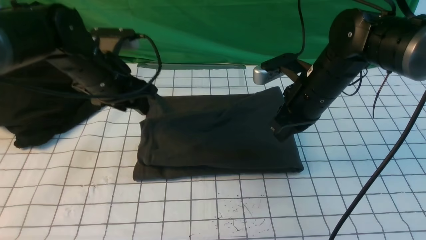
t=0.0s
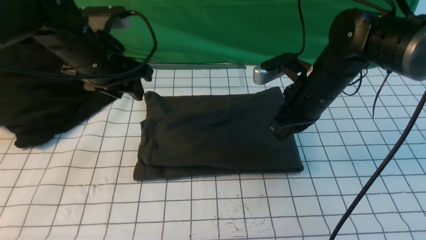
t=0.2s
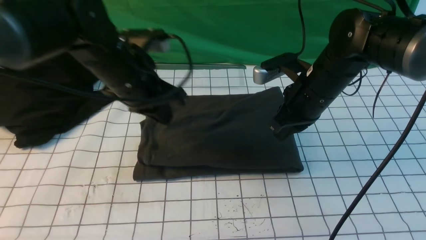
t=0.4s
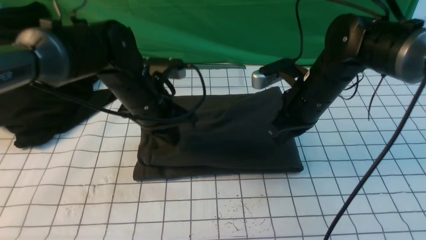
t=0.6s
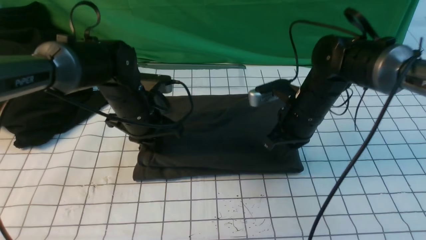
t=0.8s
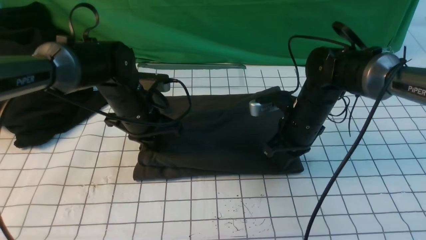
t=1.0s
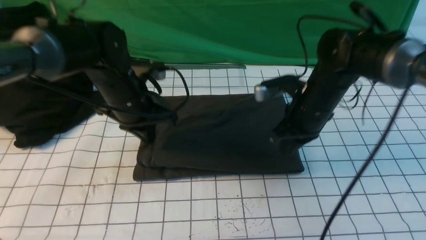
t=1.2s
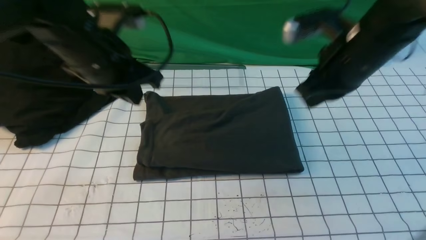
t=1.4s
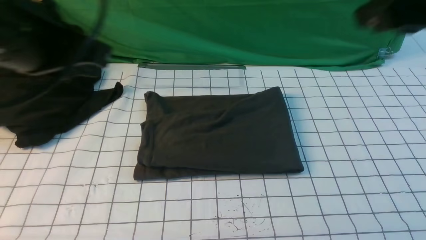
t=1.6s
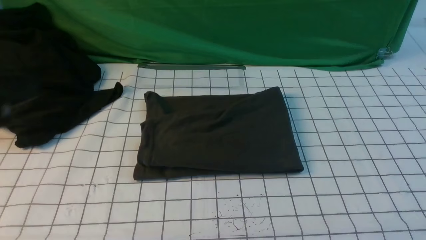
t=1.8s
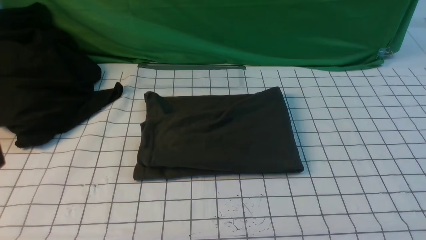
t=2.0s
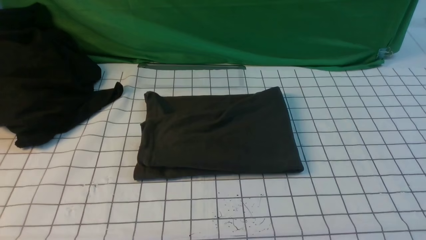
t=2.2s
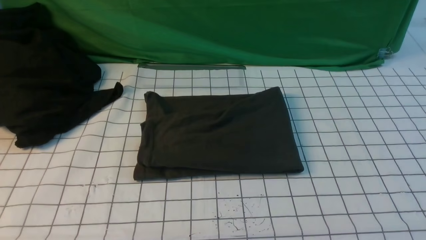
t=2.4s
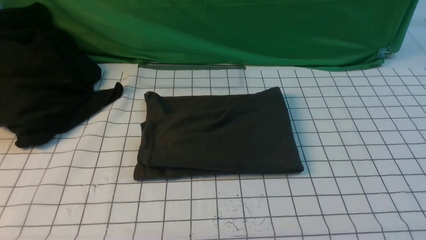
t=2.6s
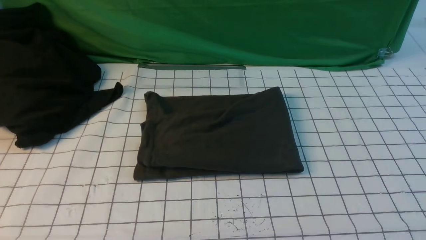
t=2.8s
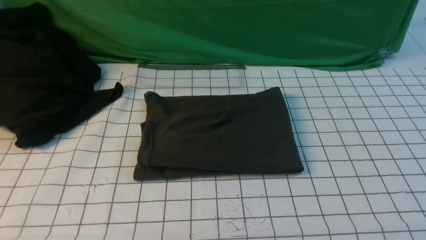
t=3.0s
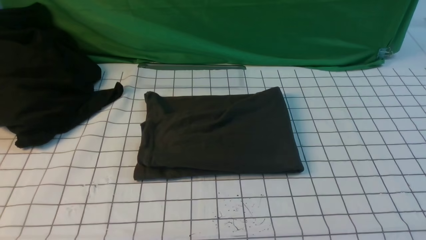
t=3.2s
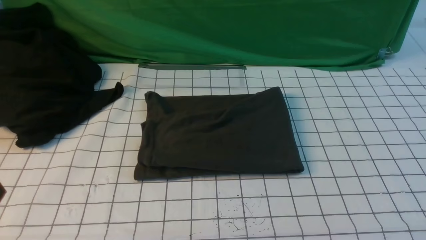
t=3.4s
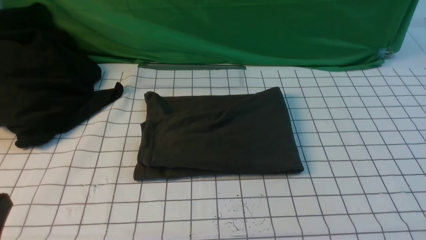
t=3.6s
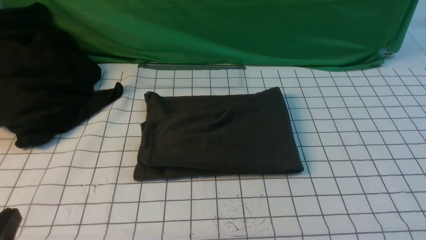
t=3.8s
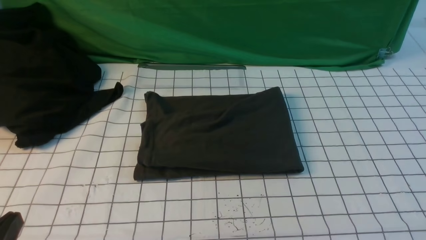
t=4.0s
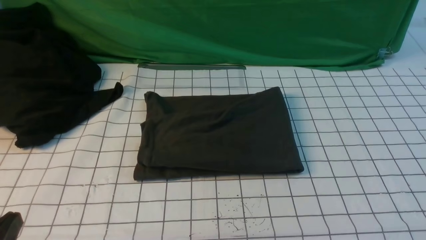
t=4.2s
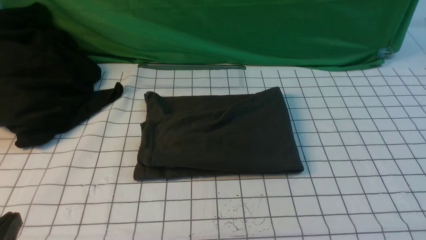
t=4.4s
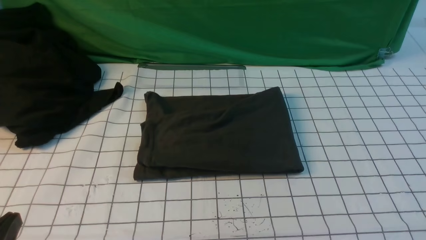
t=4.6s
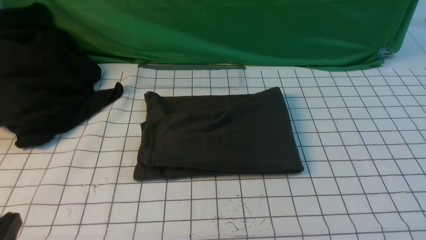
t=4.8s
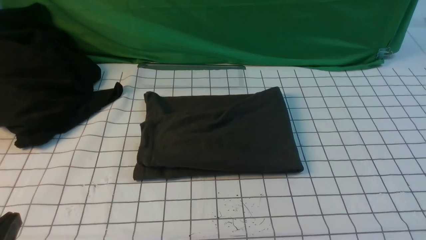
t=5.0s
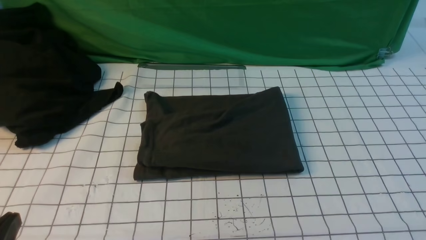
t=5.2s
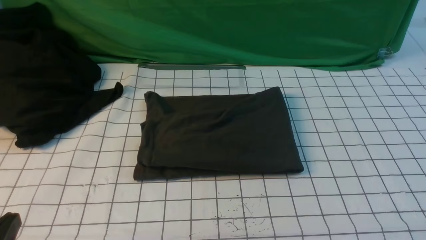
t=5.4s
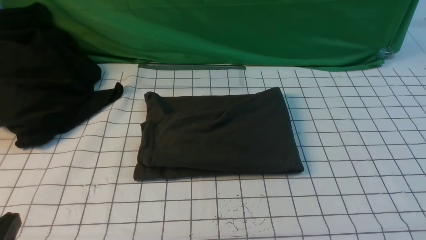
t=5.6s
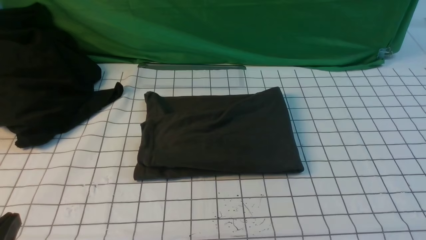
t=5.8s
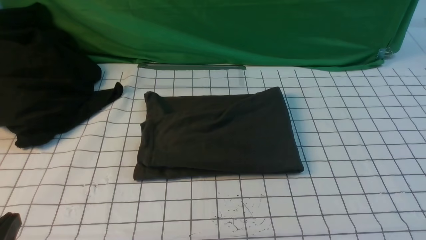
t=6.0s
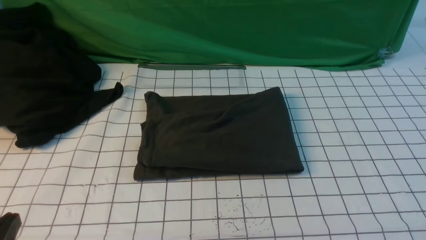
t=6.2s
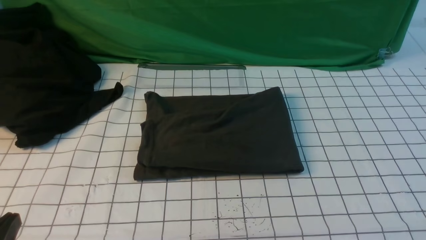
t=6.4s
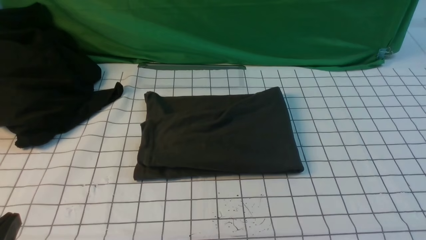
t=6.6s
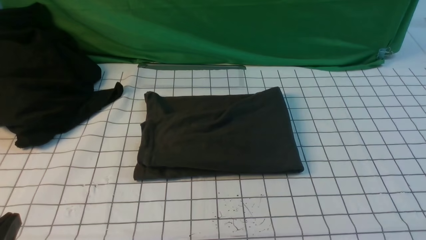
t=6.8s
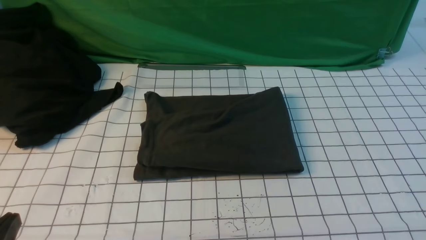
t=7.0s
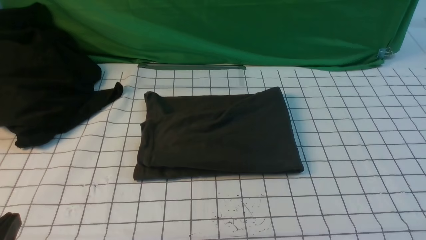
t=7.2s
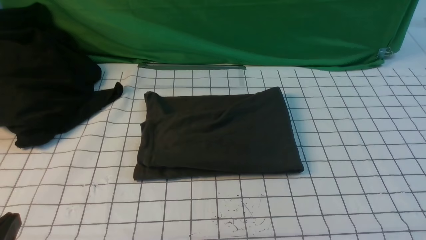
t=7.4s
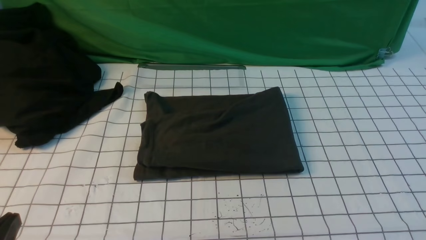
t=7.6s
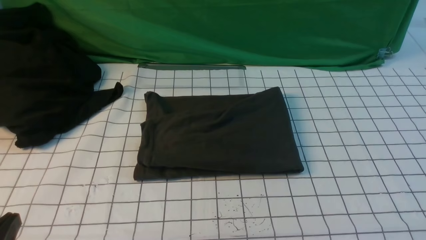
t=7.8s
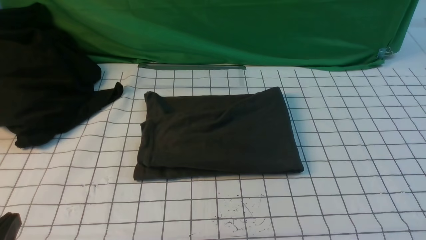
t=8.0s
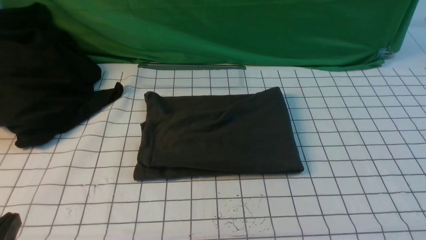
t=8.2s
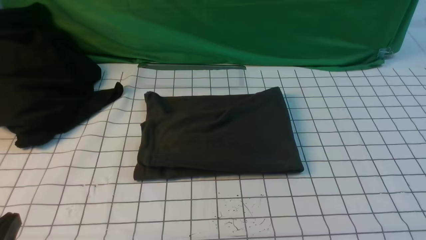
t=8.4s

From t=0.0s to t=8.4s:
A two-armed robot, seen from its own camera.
From t=0.0s to t=1.4s: The two grippers go roughly 10 cm upward and backward. The left gripper closes its fingers.
From t=1.4s to t=2.8s: The left gripper is displaced backward by roughly 30 cm. Meanwhile the right gripper moves backward and to the right, about 30 cm.
From t=7.0s to t=8.4s: The two grippers keep their place.

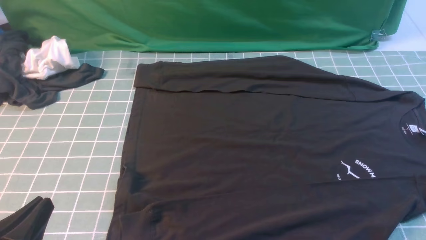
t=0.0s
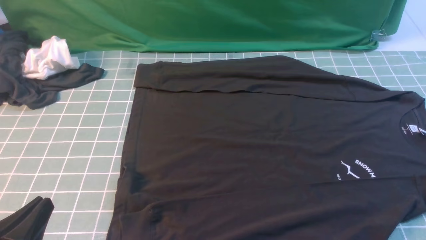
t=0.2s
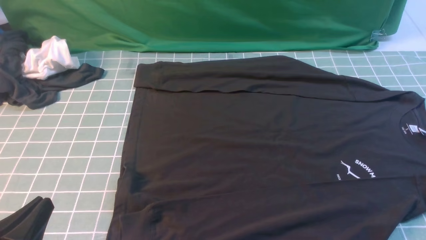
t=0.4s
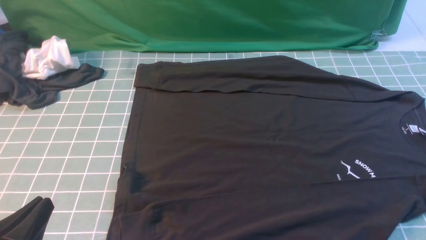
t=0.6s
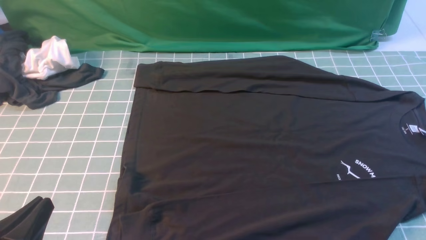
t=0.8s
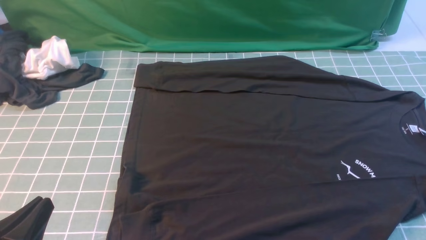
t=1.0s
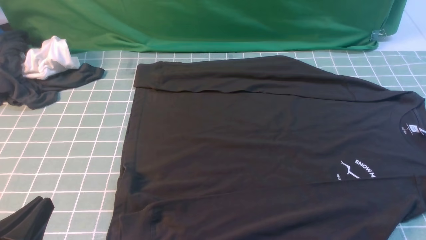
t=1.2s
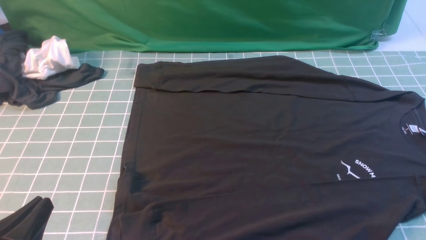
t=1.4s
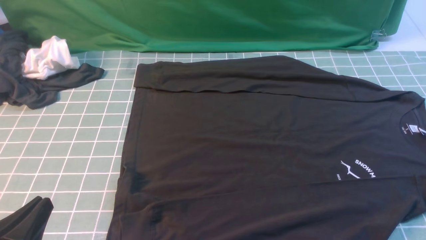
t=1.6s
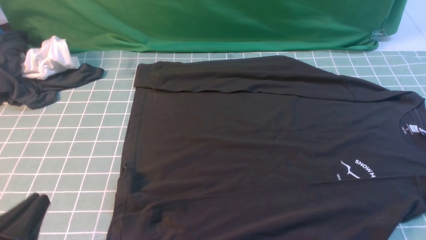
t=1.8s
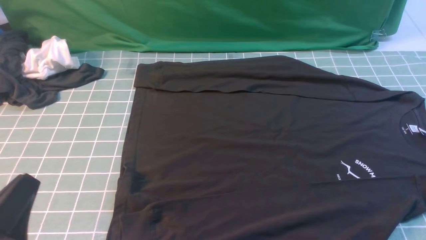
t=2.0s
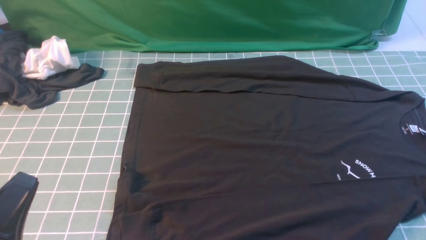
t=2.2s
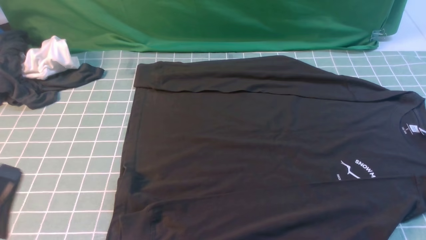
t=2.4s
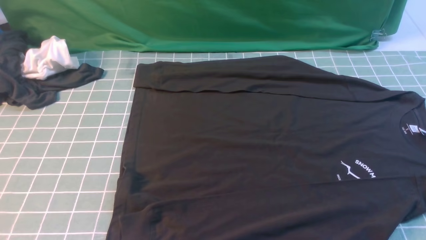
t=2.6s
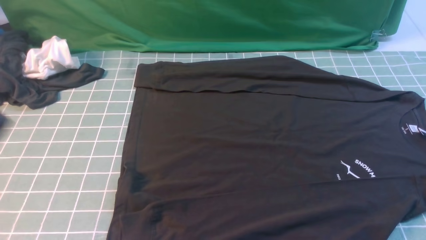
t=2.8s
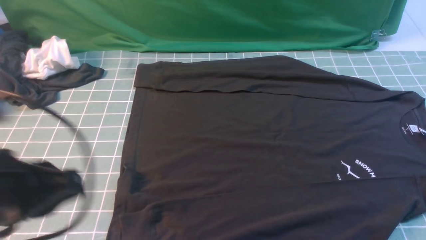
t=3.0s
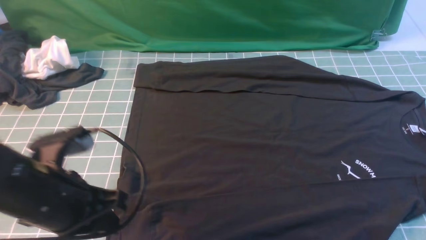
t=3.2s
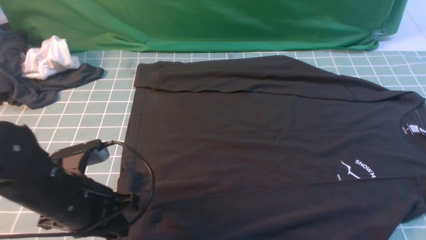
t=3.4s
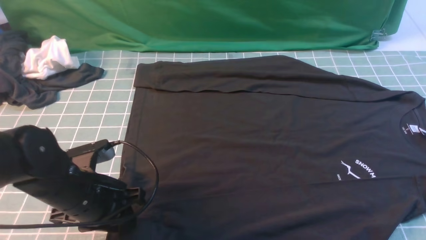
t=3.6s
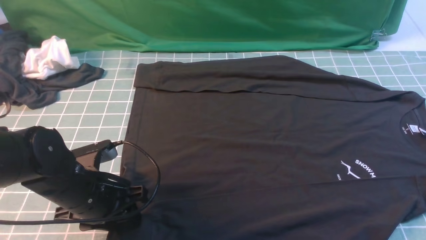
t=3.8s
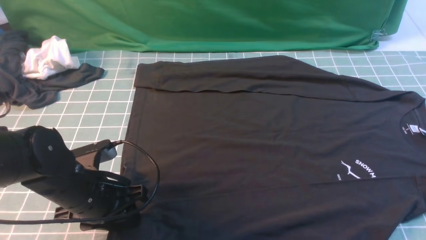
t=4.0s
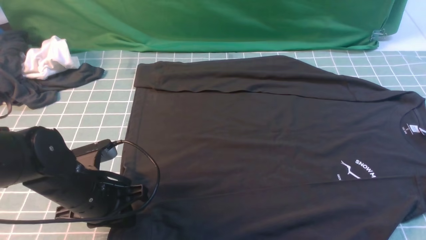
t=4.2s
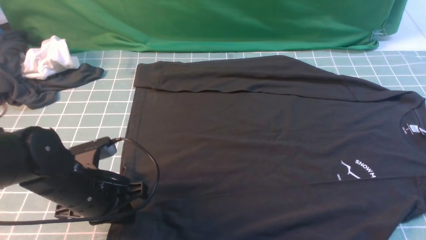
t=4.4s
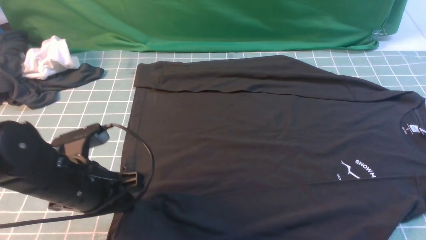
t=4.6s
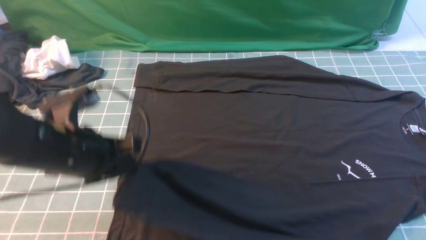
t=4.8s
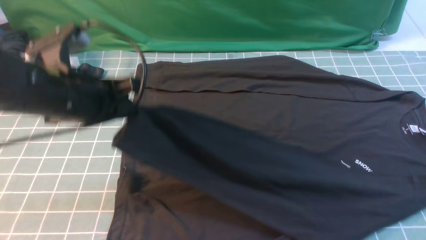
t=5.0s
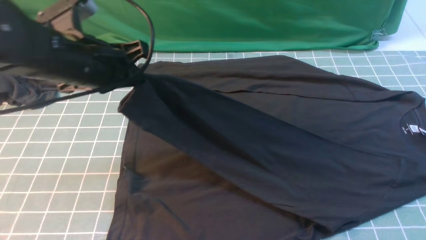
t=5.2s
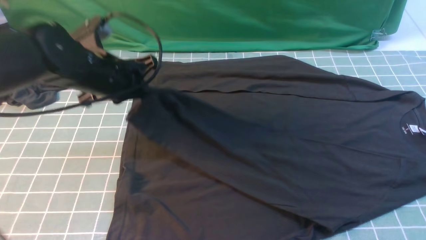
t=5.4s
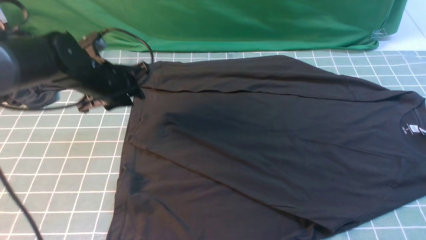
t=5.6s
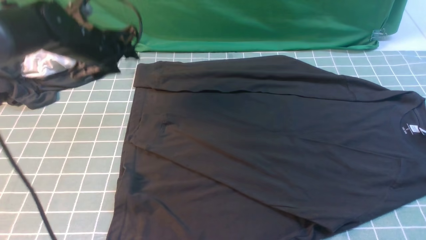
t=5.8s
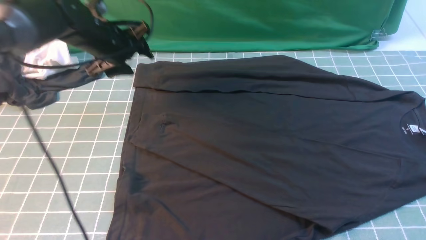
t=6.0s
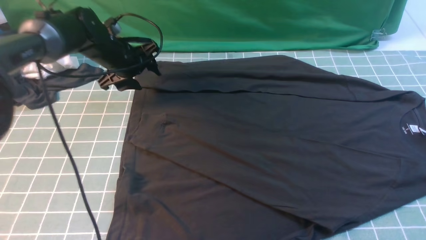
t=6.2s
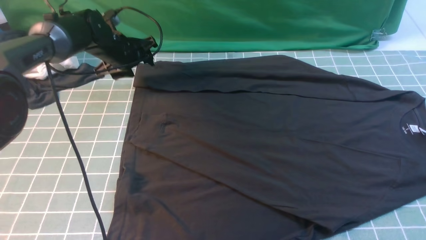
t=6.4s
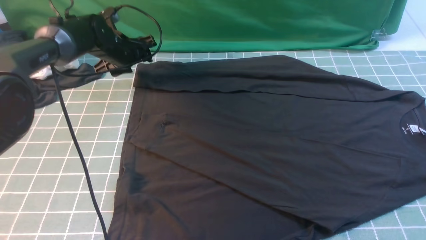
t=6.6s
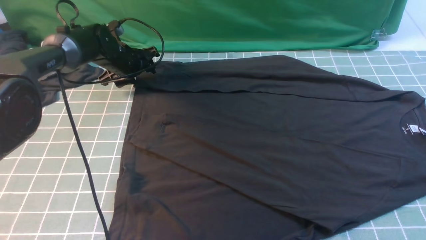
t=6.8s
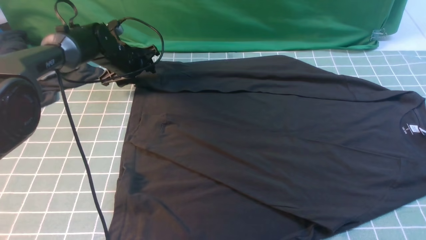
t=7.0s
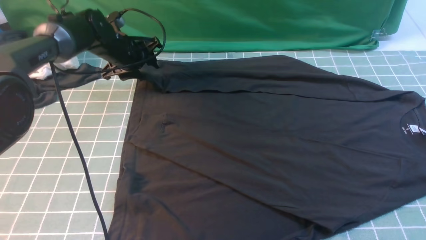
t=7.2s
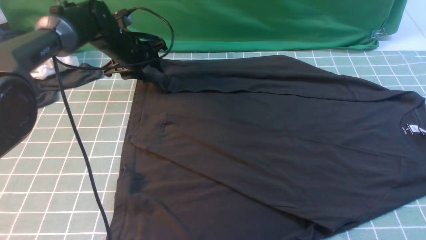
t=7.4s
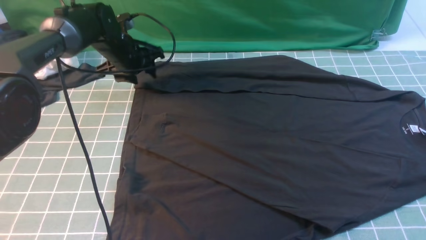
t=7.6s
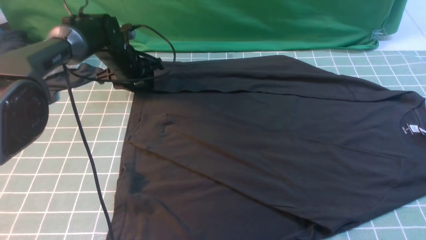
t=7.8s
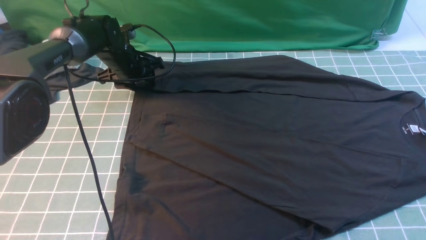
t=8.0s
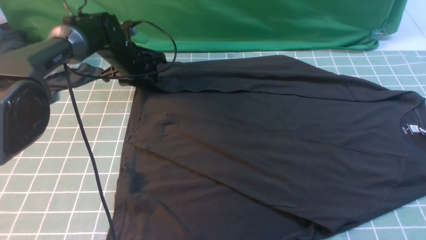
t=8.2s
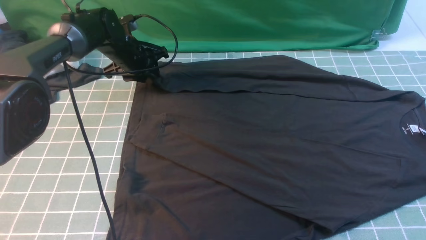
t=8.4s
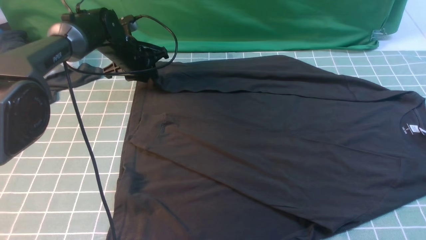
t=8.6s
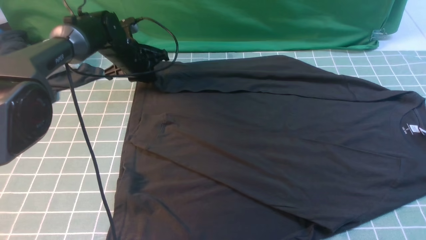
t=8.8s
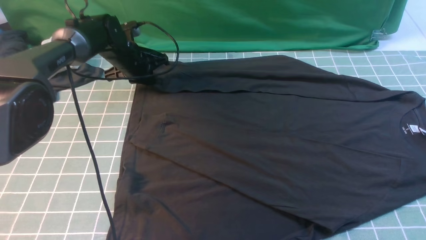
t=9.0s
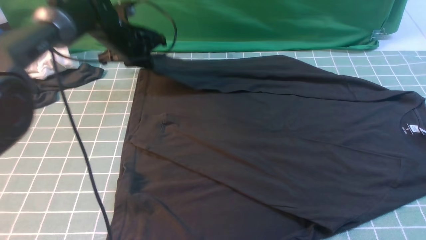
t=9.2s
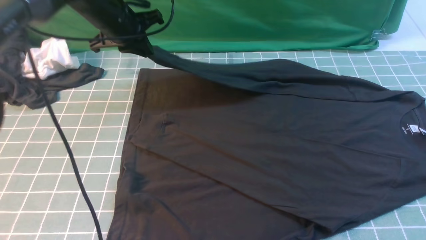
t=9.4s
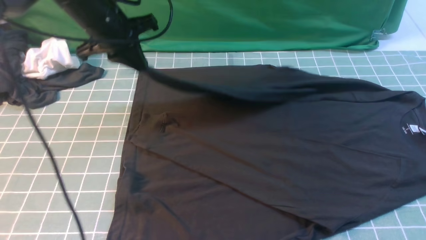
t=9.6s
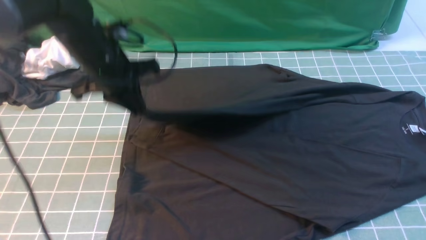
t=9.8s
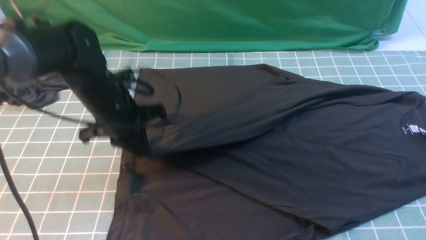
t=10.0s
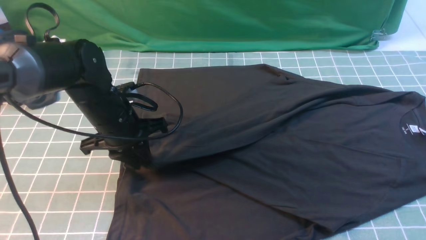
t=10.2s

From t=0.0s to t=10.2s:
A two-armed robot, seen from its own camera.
Step, from t=0.0s to t=4.6s: use the left arm to clamp the cuff closest to it.
Step, from t=4.8s to t=5.6s: use the left arm to drag and place the cuff at the centered position on the left edge of the fabric.
Step, from t=5.8s to t=9.0s: use the left arm to clamp the cuff farthest from it.
From t=0.0s to t=1.4s: Both grippers stay put.
From t=1.4s to t=3.0s: The left gripper travels upward and forward by about 15 cm.
From t=3.0s to t=4.4s: The right gripper changes place by some 5 cm. The left gripper moves downward and forward, about 15 cm, and opens and closes again.
From t=4.4s to t=5.8s: The left gripper goes approximately 20 cm forward, and opens.
From t=5.8s to t=7.2s: The left gripper is displaced forward and downward by some 10 cm.
From t=7.2s to t=8.8s: The left gripper closes up.
From t=8.8s to t=10.2s: The left gripper shifts some 20 cm backward.
